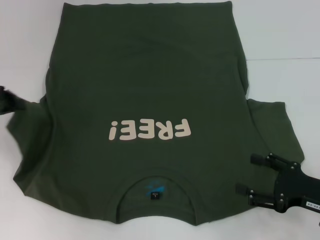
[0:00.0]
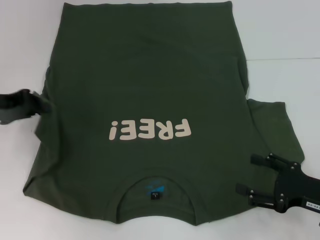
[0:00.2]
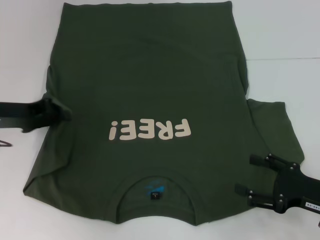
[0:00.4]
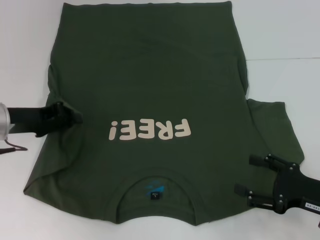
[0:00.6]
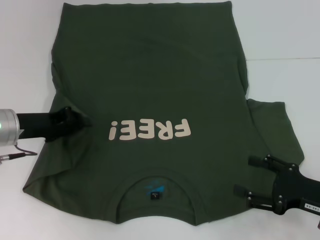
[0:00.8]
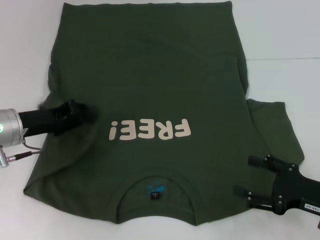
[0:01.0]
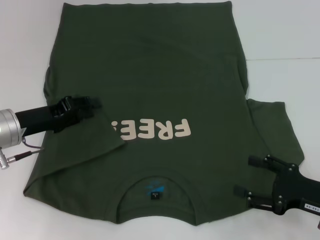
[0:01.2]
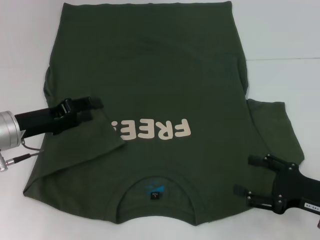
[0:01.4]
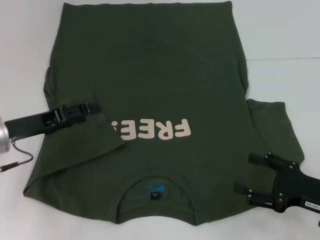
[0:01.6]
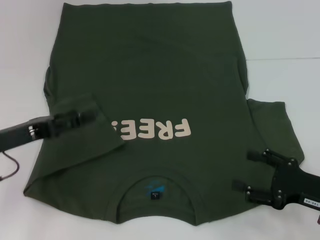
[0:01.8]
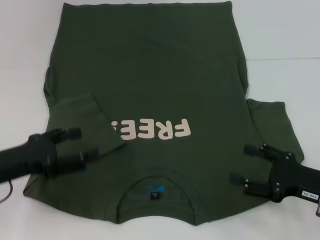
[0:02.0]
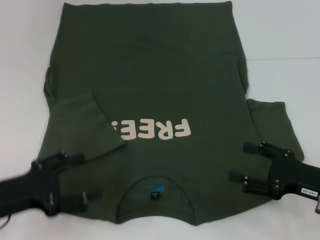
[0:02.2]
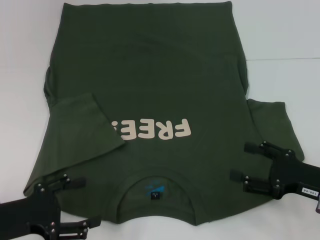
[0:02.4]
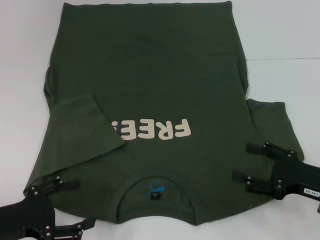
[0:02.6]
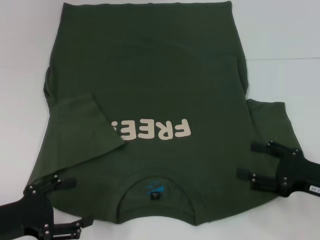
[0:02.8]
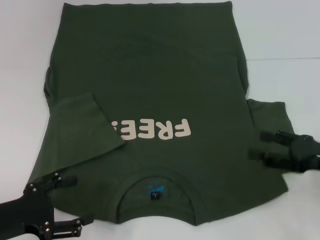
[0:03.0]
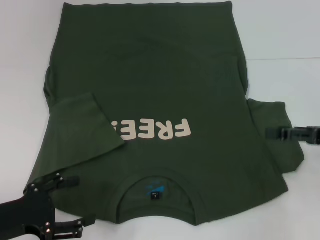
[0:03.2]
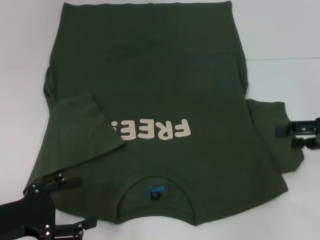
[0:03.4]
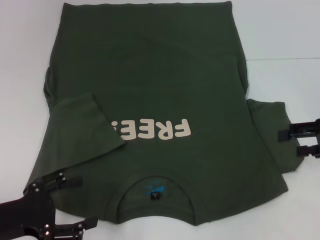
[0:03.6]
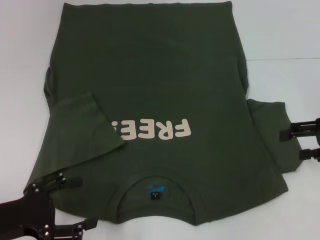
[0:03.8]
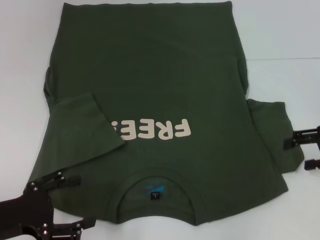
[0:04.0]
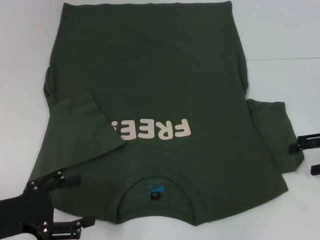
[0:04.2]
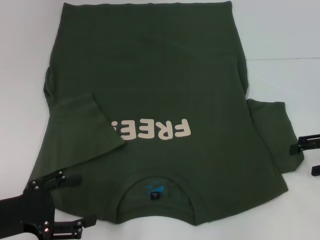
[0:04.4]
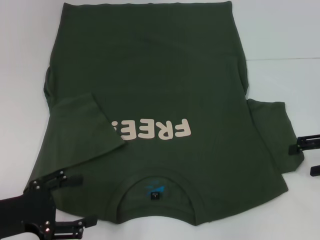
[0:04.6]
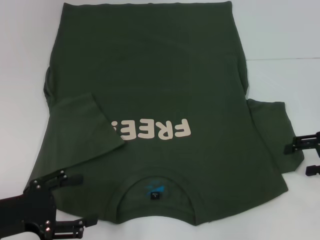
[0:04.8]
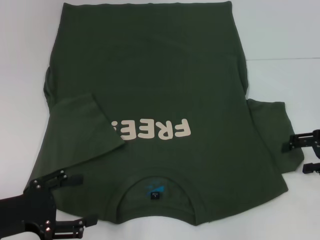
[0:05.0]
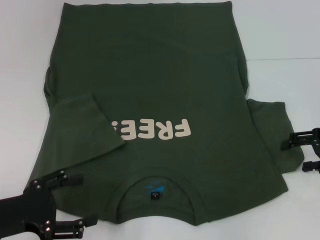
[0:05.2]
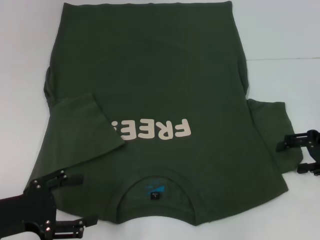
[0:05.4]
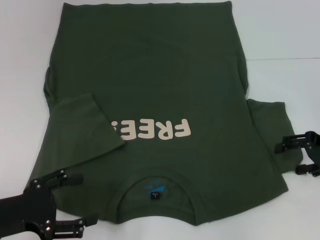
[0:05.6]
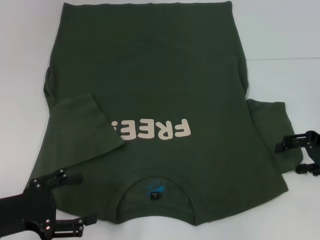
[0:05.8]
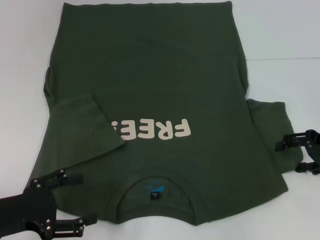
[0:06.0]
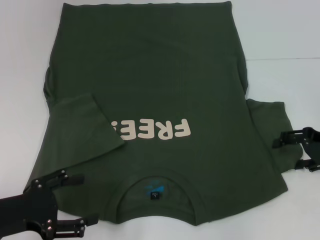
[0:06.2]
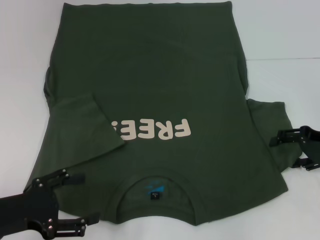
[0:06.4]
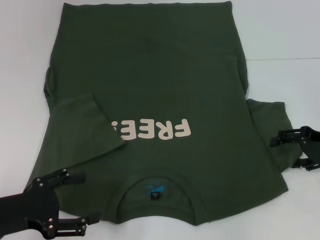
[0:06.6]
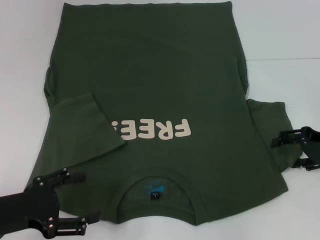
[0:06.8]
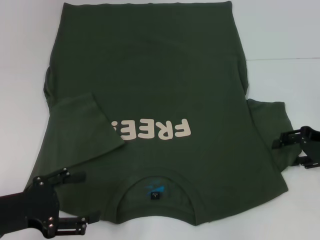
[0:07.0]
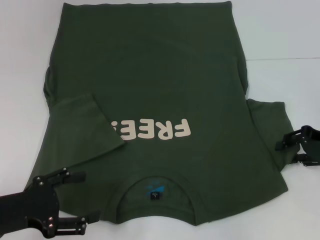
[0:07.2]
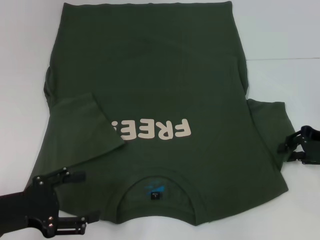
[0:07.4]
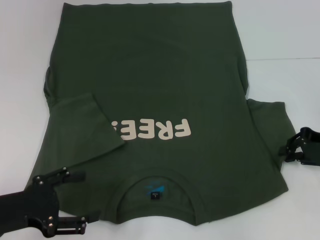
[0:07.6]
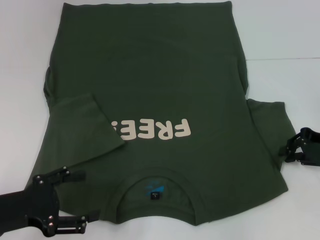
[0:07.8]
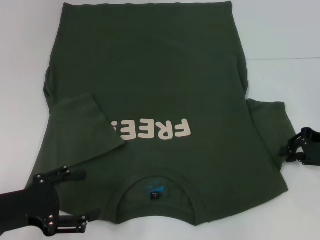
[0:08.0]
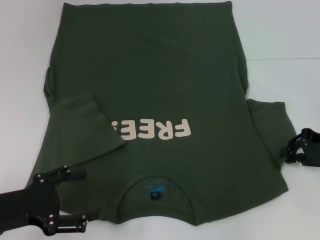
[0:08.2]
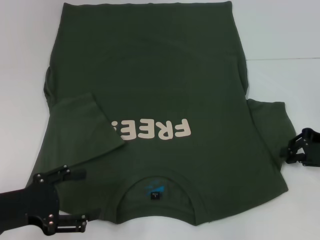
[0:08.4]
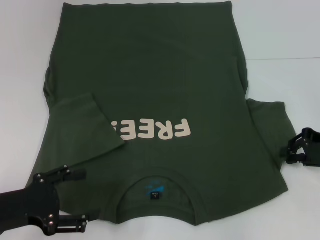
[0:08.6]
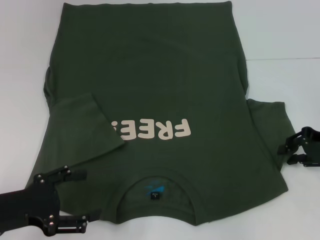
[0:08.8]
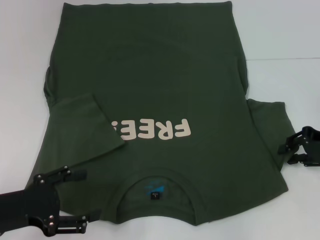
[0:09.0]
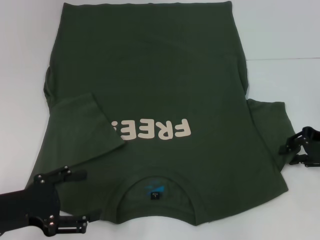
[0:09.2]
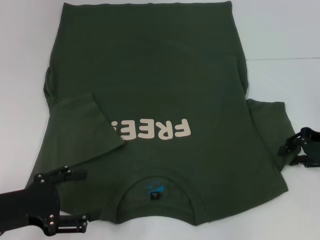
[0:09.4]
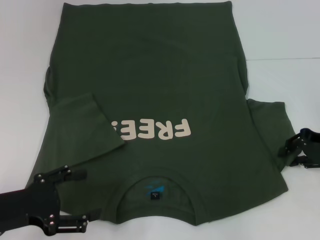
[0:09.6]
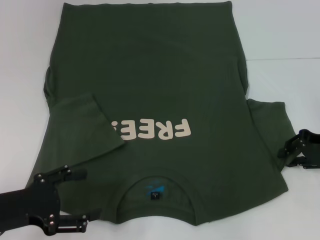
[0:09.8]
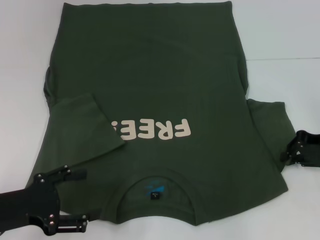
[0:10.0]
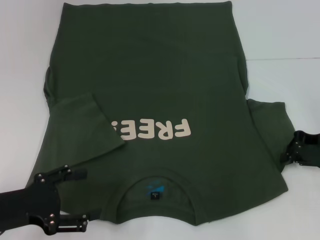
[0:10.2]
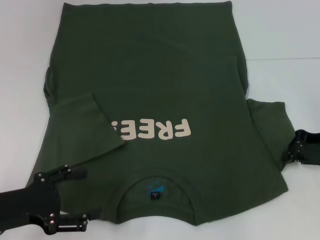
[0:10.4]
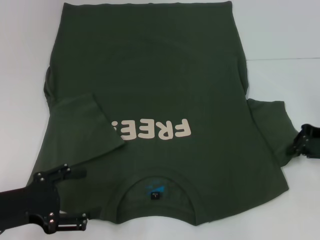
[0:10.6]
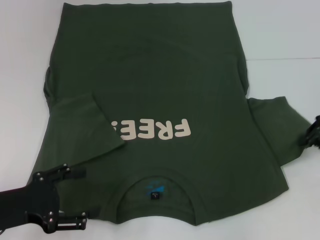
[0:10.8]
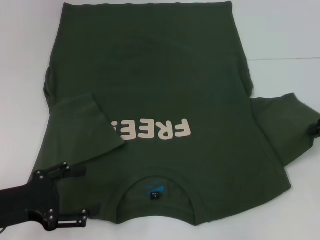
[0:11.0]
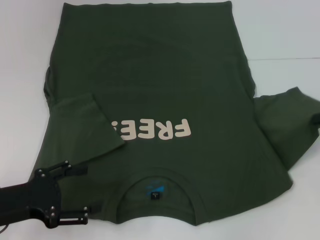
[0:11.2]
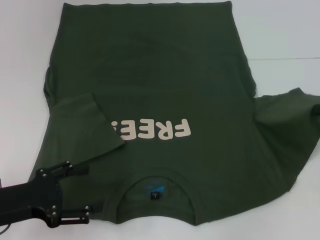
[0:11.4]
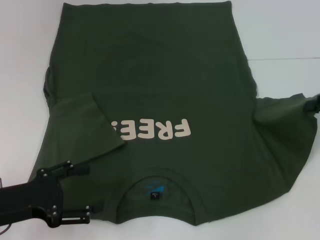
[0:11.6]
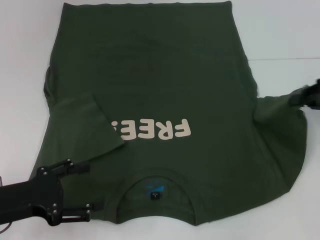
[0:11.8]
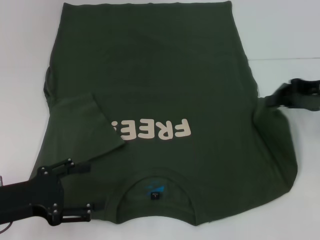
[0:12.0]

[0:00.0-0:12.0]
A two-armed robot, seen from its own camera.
0:00.0 to 0:01.6: The left gripper moves to the right and downward, approximately 10 cm, and opens its fingers.
0:01.6 to 0:03.0: The right gripper shifts by some 5 cm; the left gripper goes roughly 10 cm backward, and opens up.
0:03.0 to 0:04.4: The right gripper moves forward and to the right, approximately 10 cm.
0:04.4 to 0:06.0: The grippers make only small movements.
0:06.0 to 0:07.6: The right gripper closes its fingers.
0:07.6 to 0:09.0: Both grippers stay about where they are.
0:09.0 to 0:10.4: The grippers stay close to where they were, moving slightly.
0:10.4 to 0:12.0: The right gripper is displaced upward by some 5 cm.

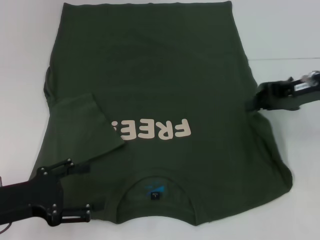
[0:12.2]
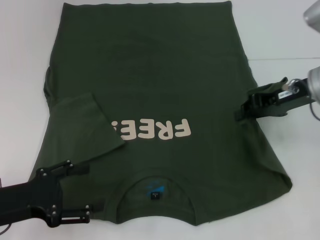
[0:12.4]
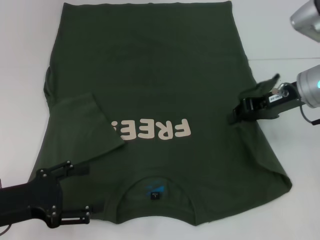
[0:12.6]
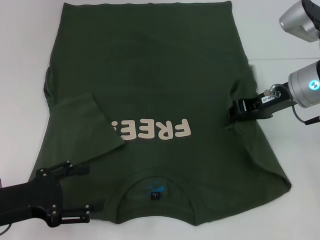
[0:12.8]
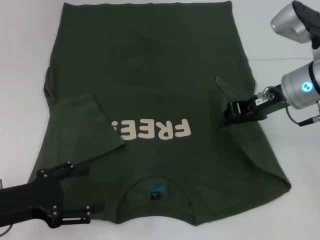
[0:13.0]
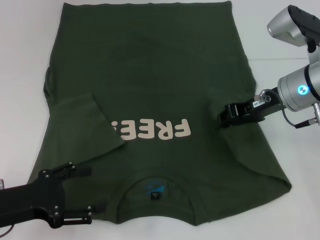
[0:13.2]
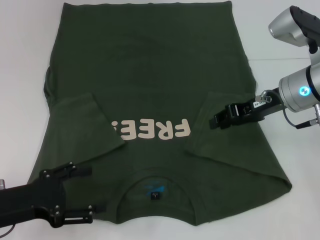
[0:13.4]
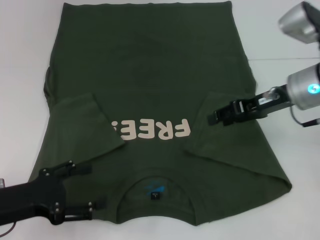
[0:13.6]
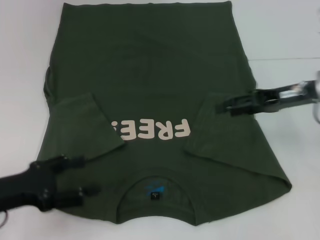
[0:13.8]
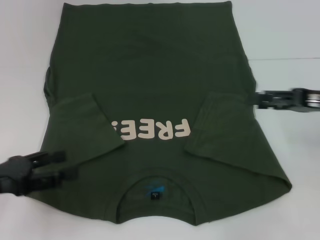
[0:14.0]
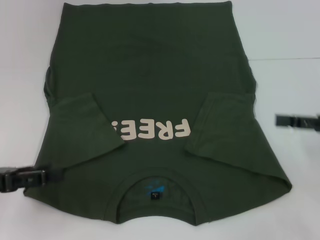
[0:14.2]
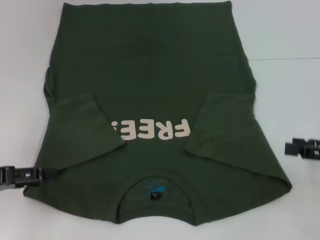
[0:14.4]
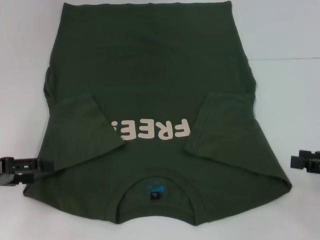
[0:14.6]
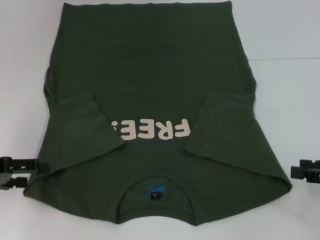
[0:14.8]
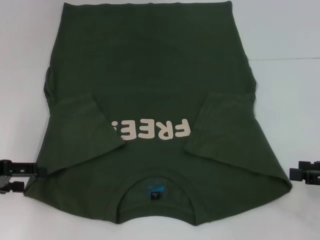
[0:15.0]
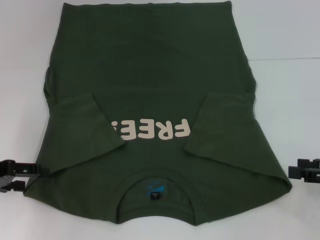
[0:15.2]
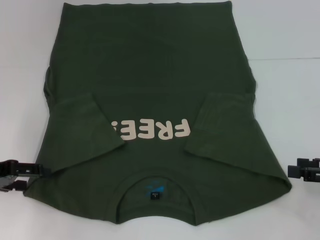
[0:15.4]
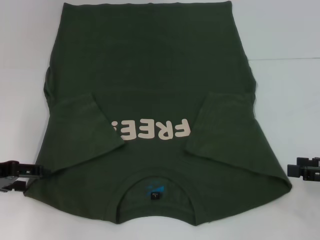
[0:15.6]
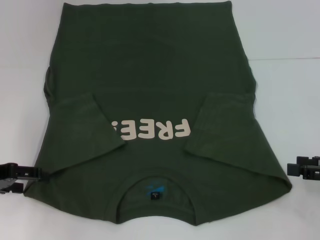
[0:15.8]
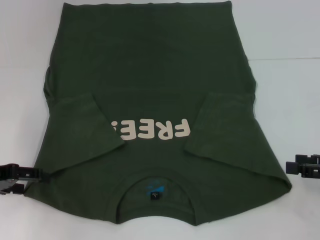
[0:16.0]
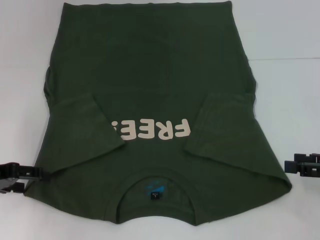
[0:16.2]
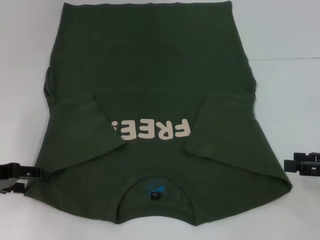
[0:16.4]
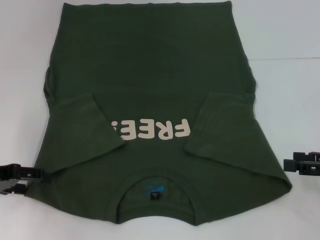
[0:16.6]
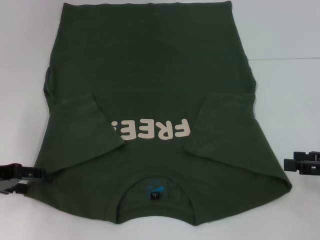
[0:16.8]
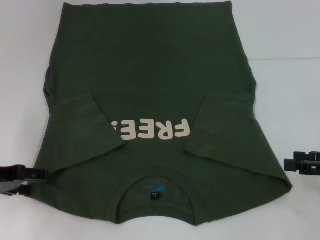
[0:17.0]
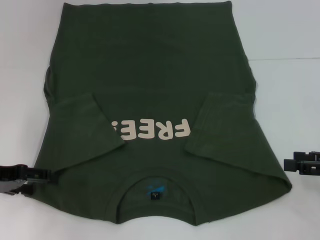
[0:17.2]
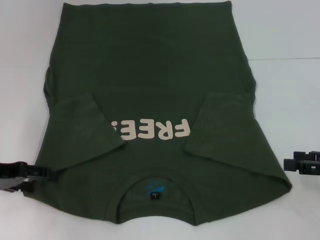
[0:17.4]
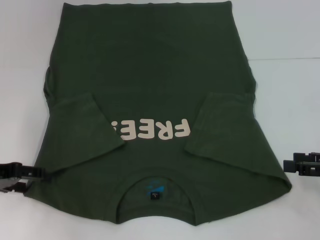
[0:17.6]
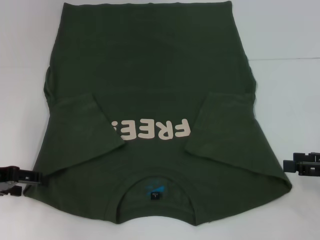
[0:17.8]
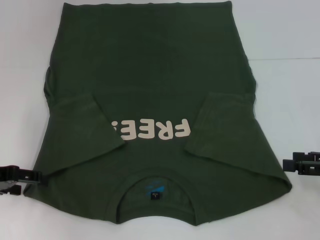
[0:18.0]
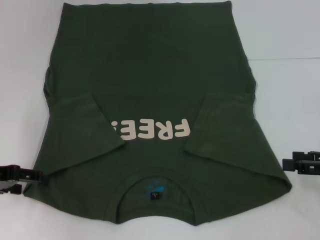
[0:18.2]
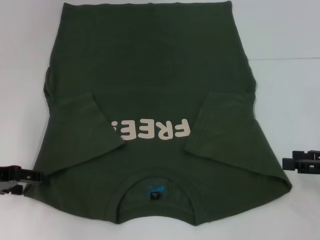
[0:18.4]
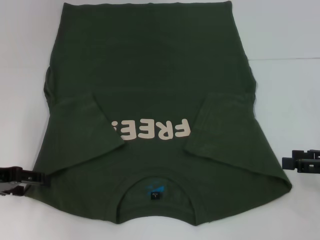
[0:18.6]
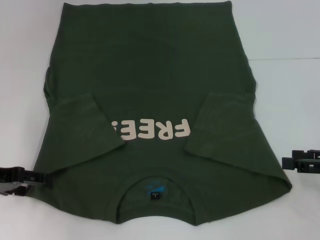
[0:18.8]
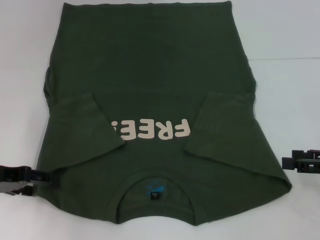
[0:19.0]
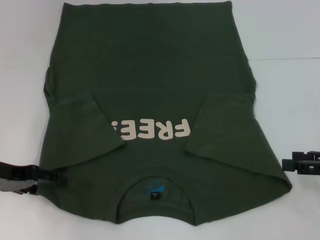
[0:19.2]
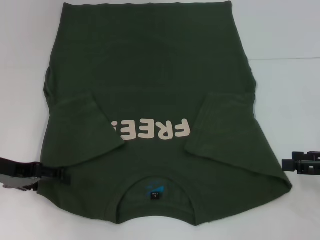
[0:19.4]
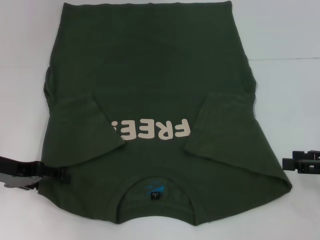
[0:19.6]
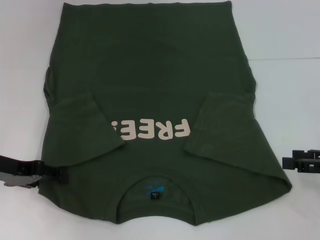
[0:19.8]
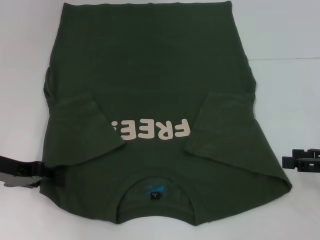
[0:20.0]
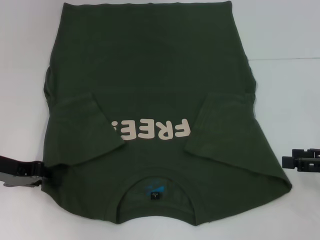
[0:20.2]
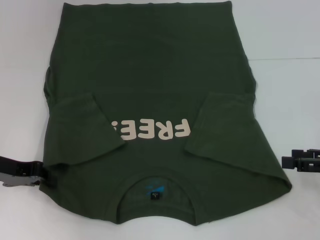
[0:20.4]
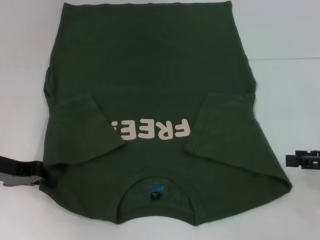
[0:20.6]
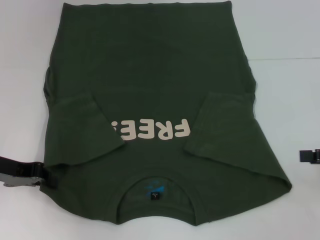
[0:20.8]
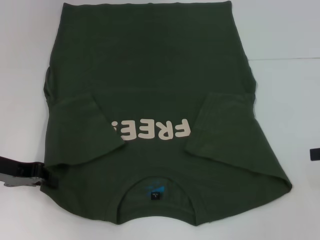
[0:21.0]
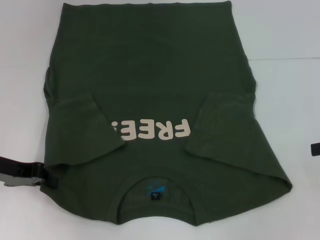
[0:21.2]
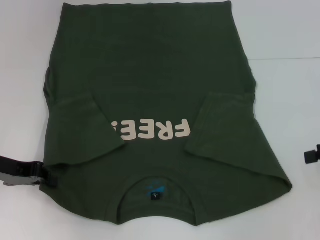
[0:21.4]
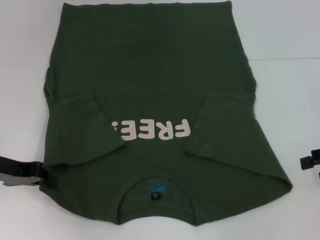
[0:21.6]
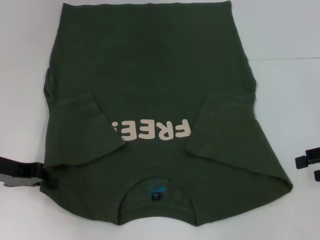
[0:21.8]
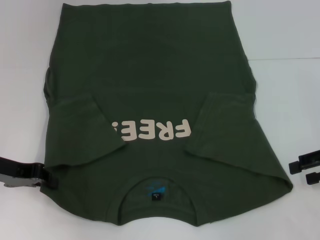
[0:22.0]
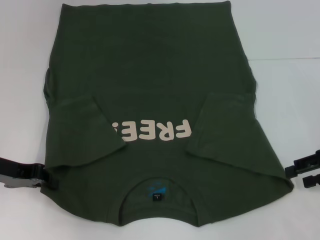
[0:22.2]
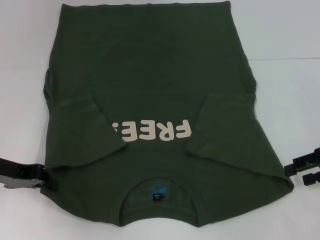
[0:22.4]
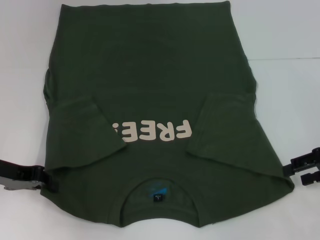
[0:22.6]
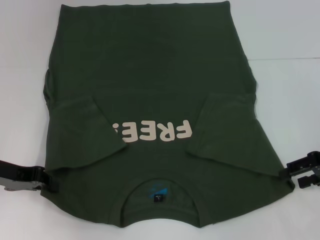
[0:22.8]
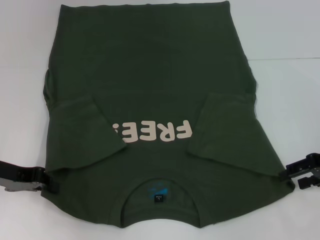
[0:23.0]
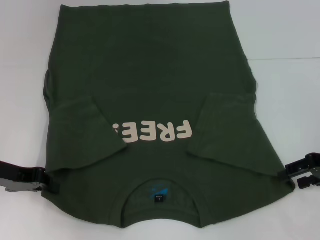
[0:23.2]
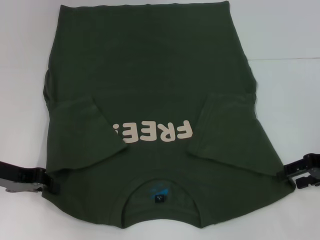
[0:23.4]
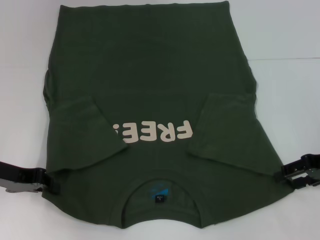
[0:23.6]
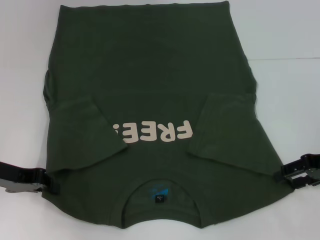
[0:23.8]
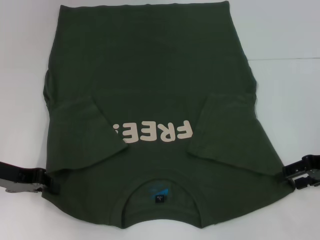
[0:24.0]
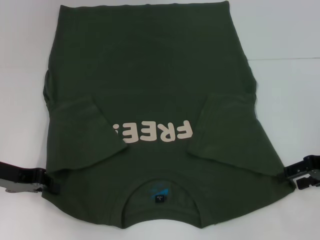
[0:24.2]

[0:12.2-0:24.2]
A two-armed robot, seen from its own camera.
Step, 0:13.6 to 0:20.6: Grab the bottom left corner with your left hand.
0:12.2 to 0:13.8: The right gripper opens its fingers.
0:13.8 to 0:15.2: The right gripper moves backward, to the right and downward, approximately 15 cm. Meanwhile the left gripper shifts about 10 cm forward and to the left.
0:15.2 to 0:16.6: The grippers move only a little.
0:16.6 to 0:18.2: Both grippers stay about where they are.
0:18.2 to 0:19.8: The grippers make only small movements.
0:19.8 to 0:21.2: The left gripper closes. The right gripper is displaced upward by about 5 cm.
0:21.2 to 0:22.6: The right gripper changes place by some 5 cm.
0:22.6 to 0:24.2: The grippers stay close to where they were, moving slightly.
